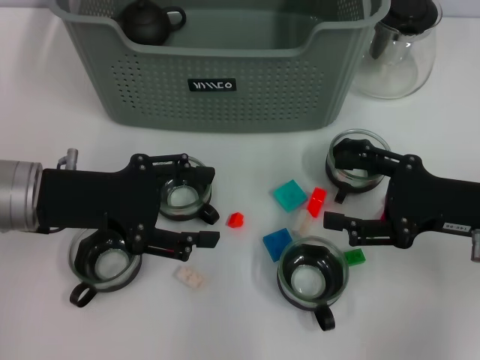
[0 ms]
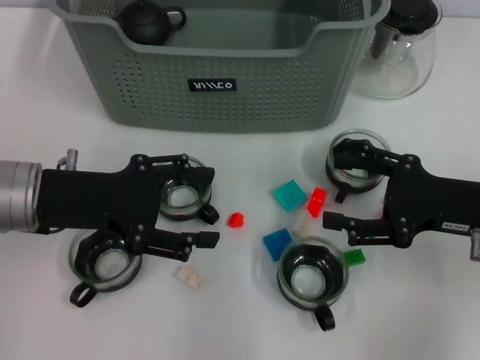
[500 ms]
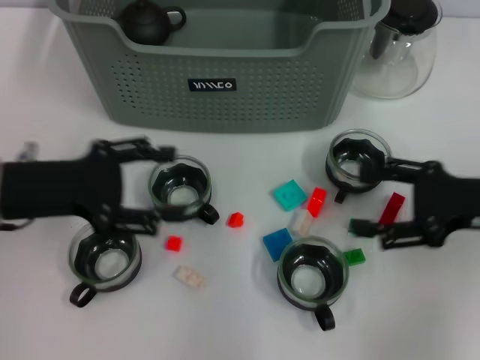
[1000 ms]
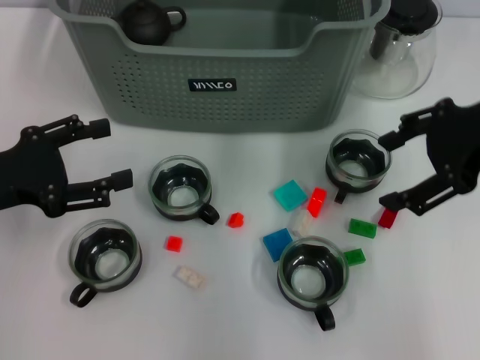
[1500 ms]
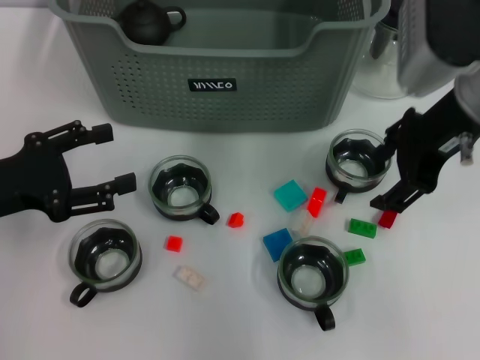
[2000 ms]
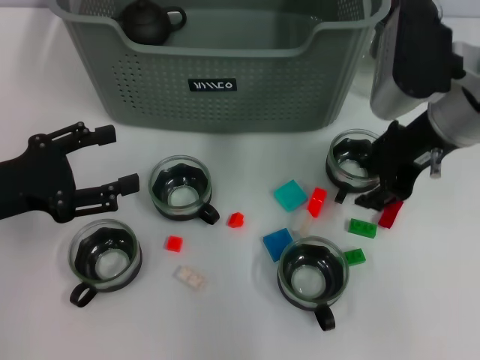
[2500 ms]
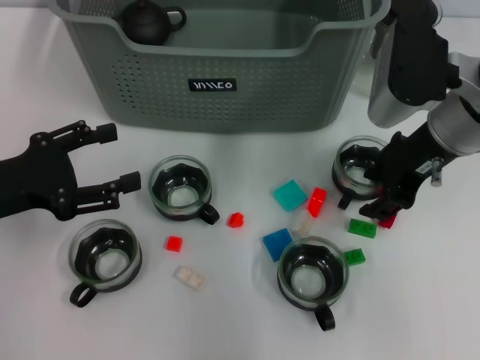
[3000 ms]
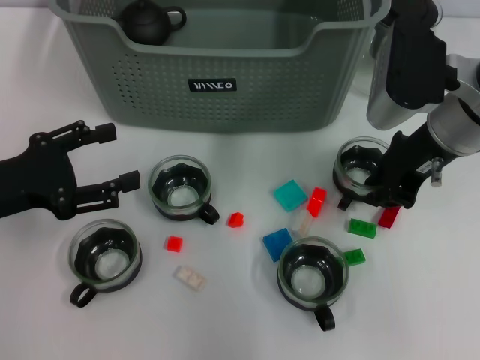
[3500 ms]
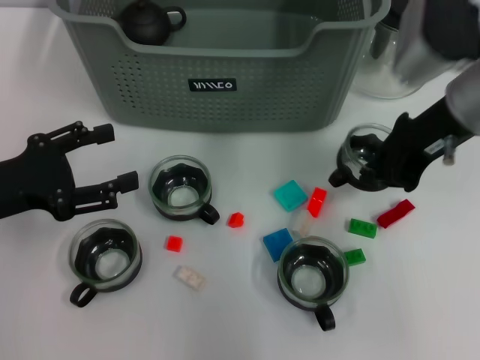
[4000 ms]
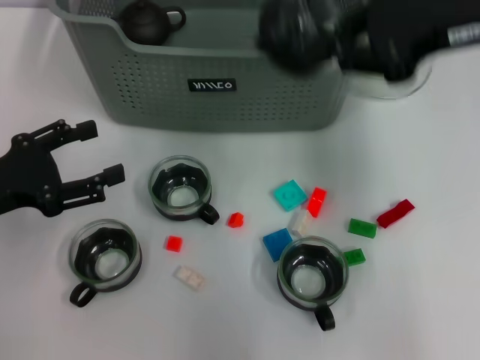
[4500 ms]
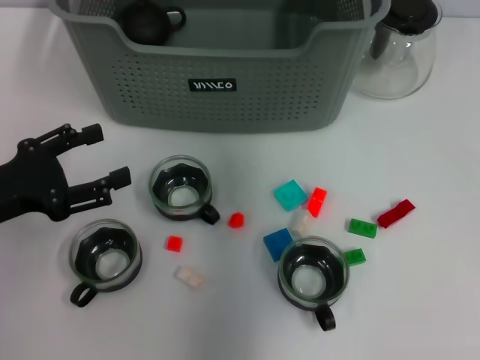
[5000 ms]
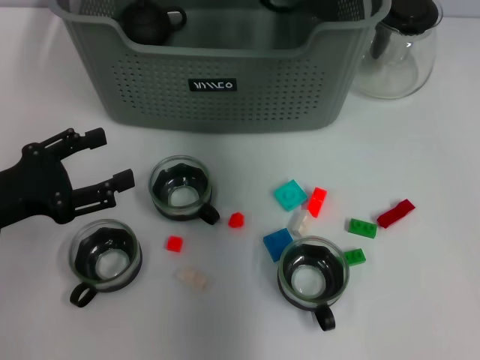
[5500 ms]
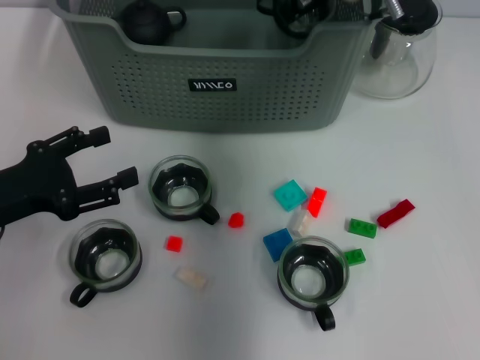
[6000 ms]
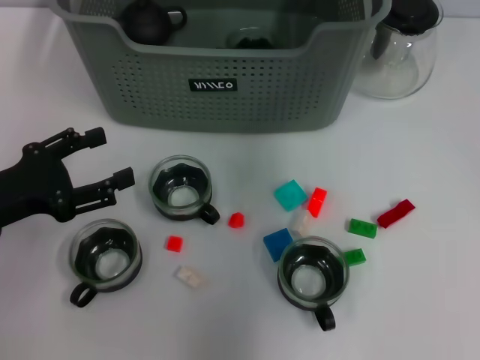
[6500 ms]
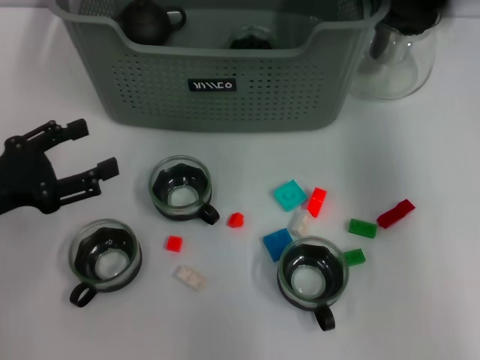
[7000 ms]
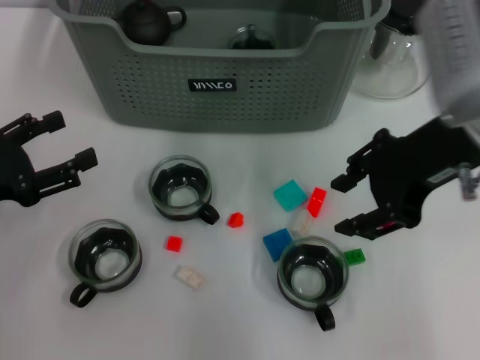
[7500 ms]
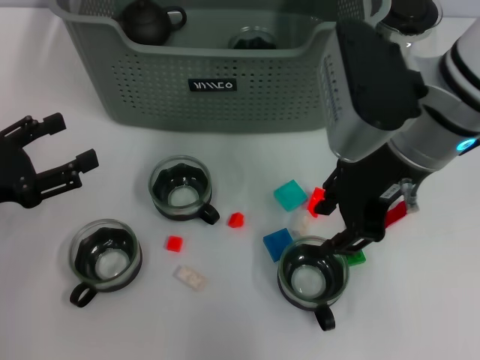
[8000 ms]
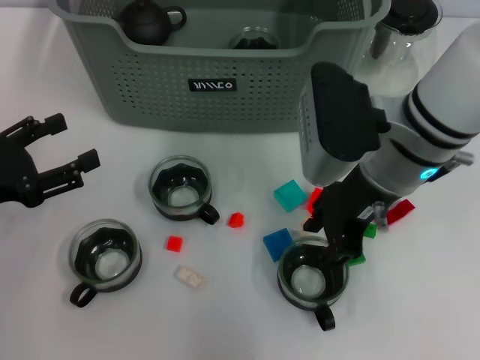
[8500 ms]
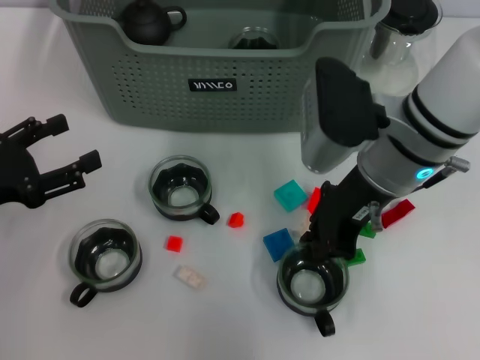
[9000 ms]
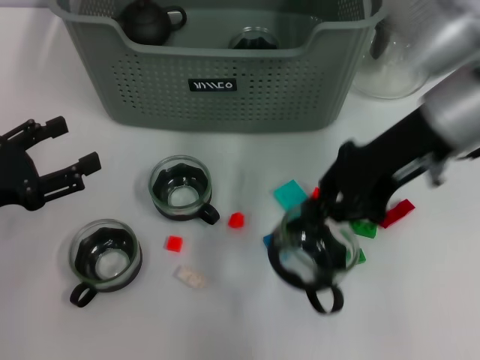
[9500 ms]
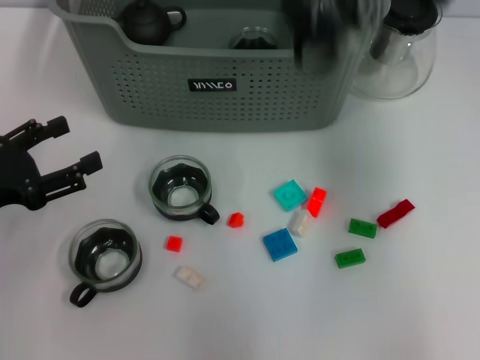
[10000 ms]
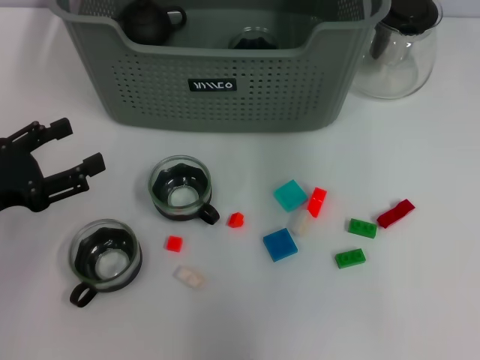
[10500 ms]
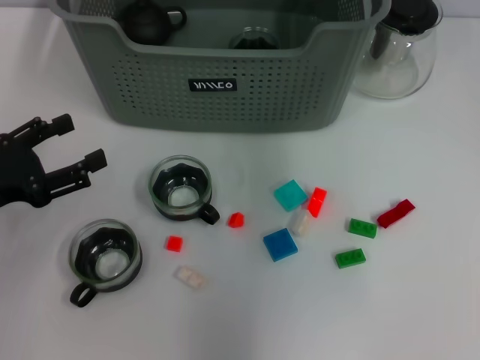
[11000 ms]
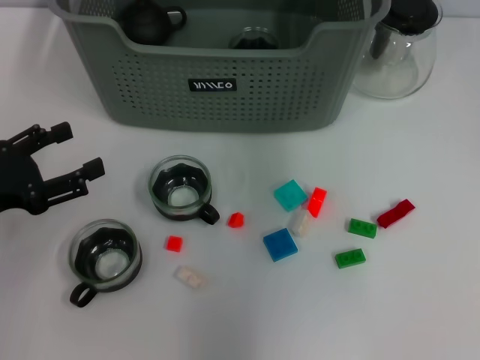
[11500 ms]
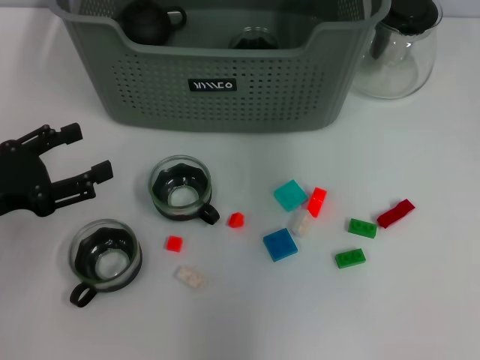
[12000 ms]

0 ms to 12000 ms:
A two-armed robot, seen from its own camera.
Task of the whole recording: pick up the teacup on the table and place it into the storage bin, pick up the block on the table and place it into the storage bin.
Step, 0 ms to 3500 ms: Grasp the cup with right gripper.
Step, 4000 ms to 7500 ms: Place the cup in the storage box with right gripper.
Step, 8000 ms to 8500 ms: Grasp the cup with right gripper.
0 ms to 2000 ms: The left gripper shifts about 5 cm to the left; the right gripper travels upward, forward and to the left by approximately 15 cm.
2000 ms to 4000 ms: The right gripper closes.
4000 ms to 6000 ms: The right gripper travels forward and to the left by about 15 cm.
6000 ms to 8000 ms: The right gripper is displaced backward by approximately 15 cm, and opens its fingers.
8000 ms to 10000 ms: The right gripper is displaced to the right and upward by approximately 15 cm, and closes up.
10000 ms to 12000 ms: The right gripper travels forward and to the left by about 15 cm.

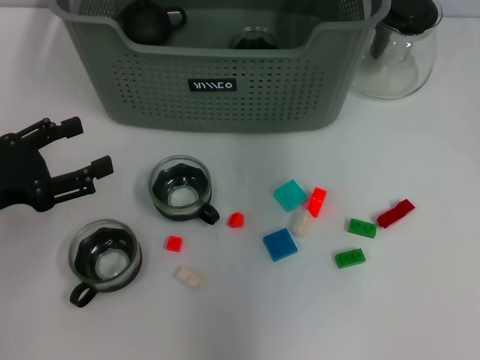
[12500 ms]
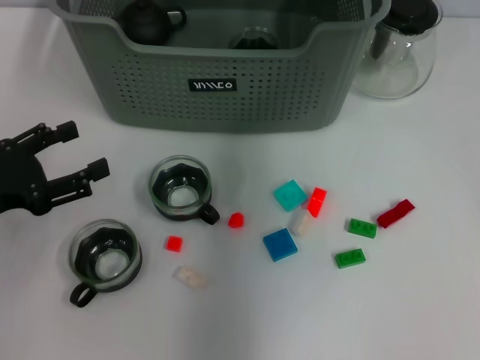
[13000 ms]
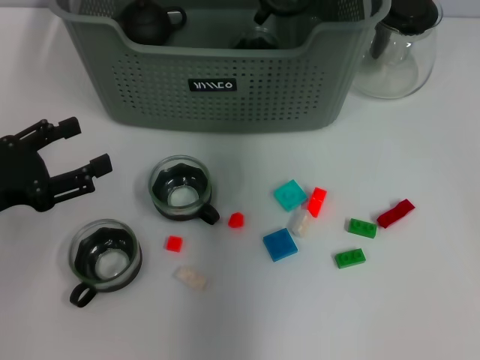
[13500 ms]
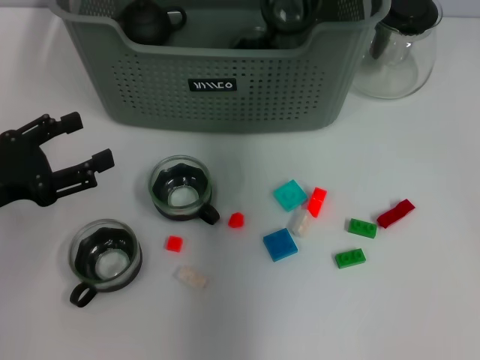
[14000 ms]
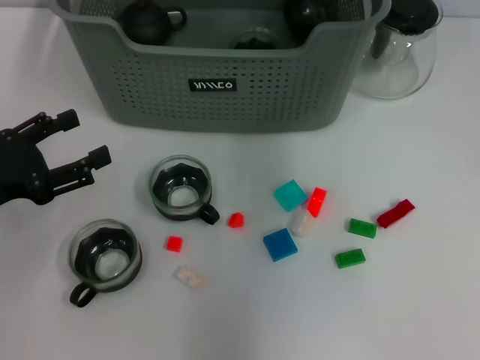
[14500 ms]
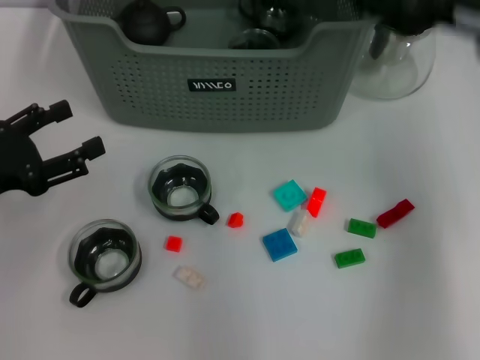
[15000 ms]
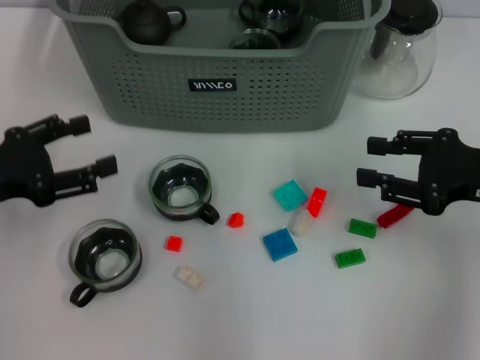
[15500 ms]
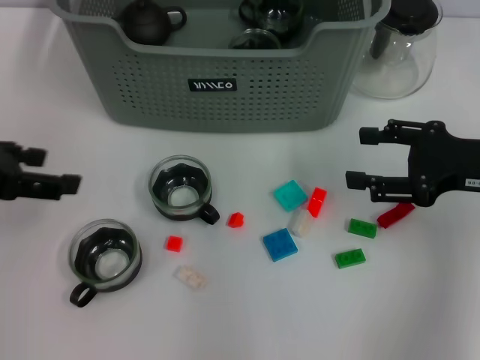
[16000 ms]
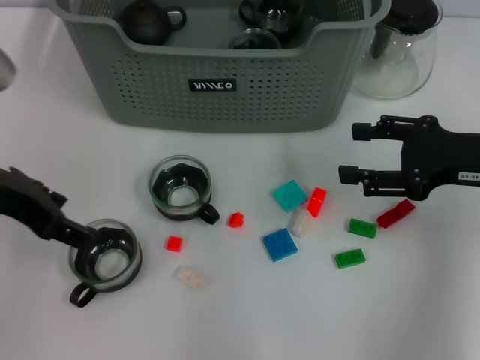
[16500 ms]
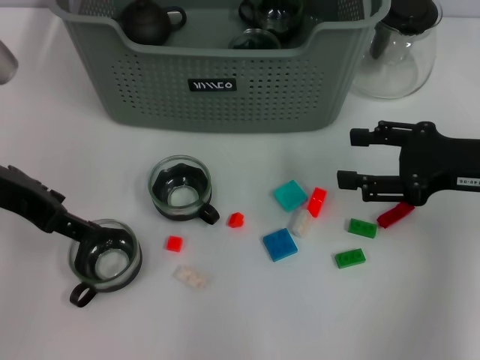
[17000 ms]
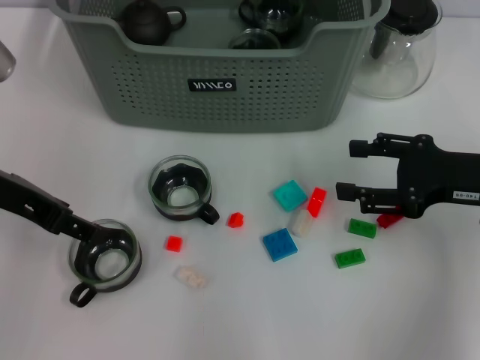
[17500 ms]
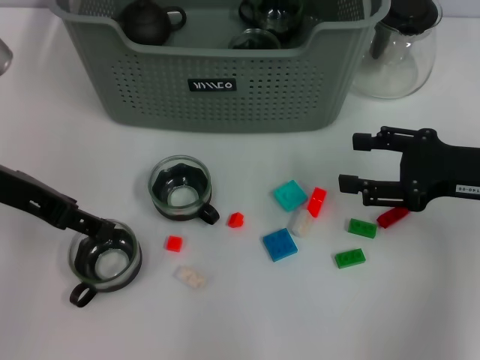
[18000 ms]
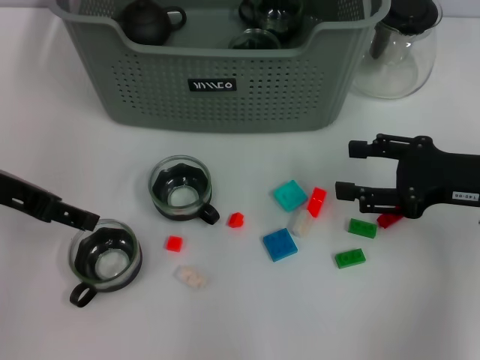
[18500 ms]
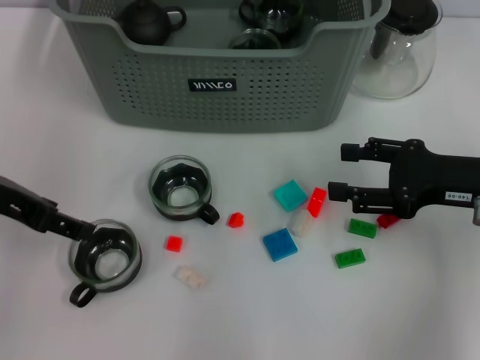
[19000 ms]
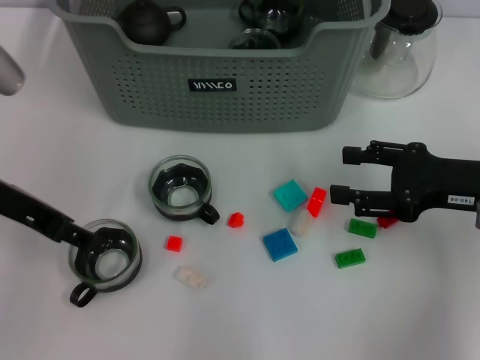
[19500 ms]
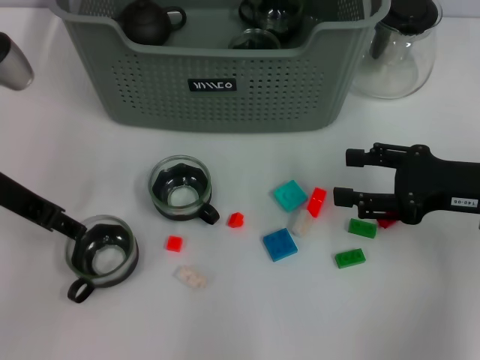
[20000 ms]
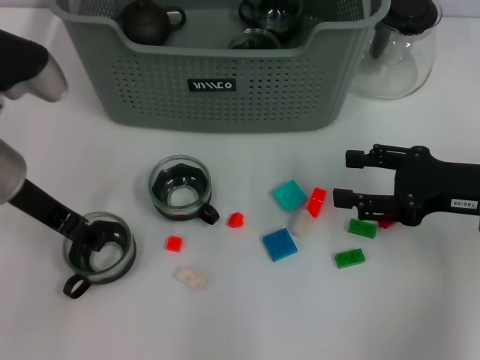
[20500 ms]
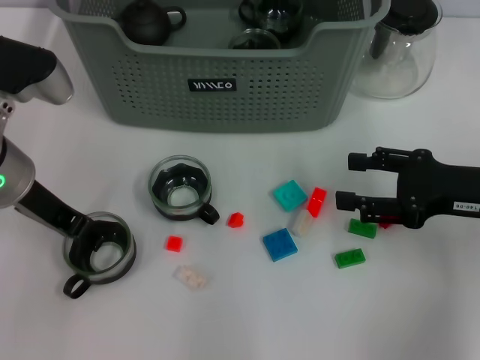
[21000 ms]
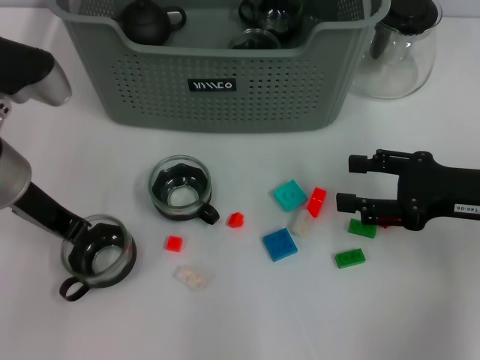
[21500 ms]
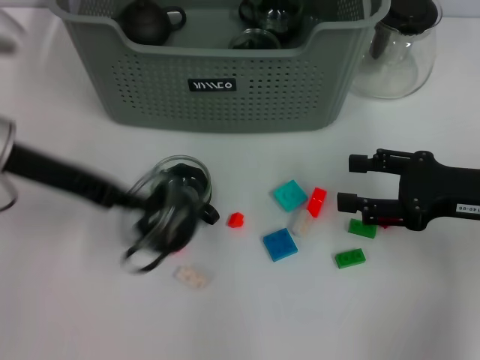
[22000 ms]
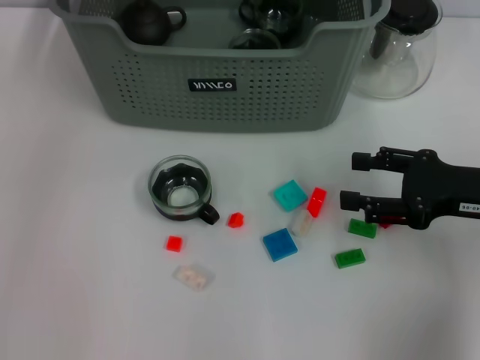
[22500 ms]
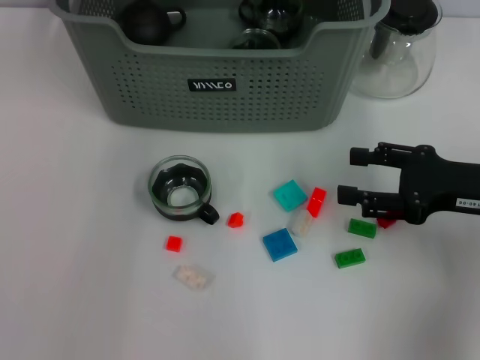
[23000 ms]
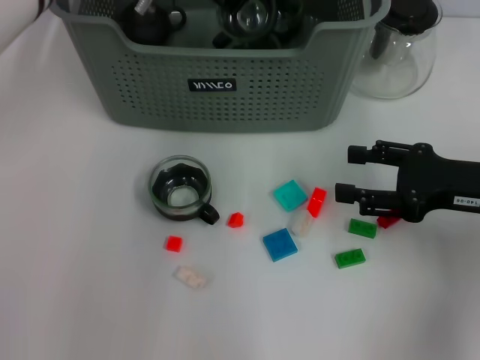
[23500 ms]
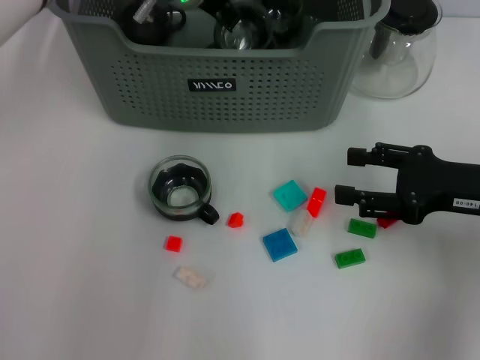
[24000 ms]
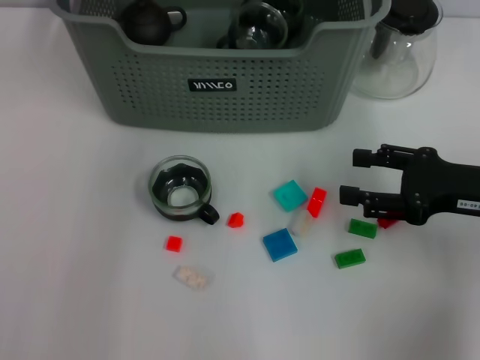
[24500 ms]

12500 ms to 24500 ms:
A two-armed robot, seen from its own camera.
Task of the whole recording: pick up the teacup on the table and place it into the storage bin, pick up the block on the table and place it into the storage bin.
Step, 12500 ms to 15000 ms: Place the cup in the storage box with right gripper.
Step, 15500 ms to 21500 ms: Grasp the cup with left gripper.
14500 ms to 16500 ms: The left gripper travels upward and to the right by some 10 cm. The right gripper is displaced backward, downward and to the right by about 25 cm, and opens its fingers.
16500 ms to 18500 ms: There are only small adjustments of the grippers.
18500 ms to 20500 ms: The left gripper ends up about 5 cm from where it was.
20500 ms to 22500 ms: The left gripper shifts about 15 cm upward and forward, and closes its fingers.
22500 ms to 24500 ms: The left gripper is displaced to the right by roughly 5 cm, and opens up.

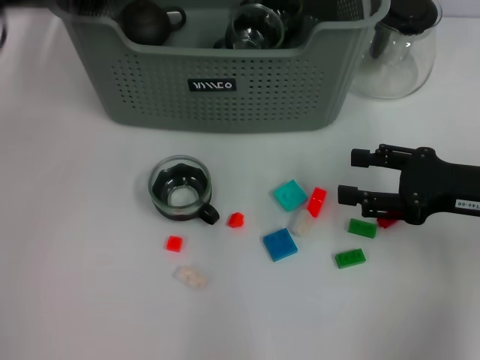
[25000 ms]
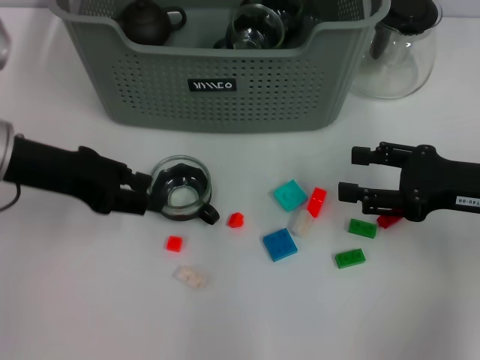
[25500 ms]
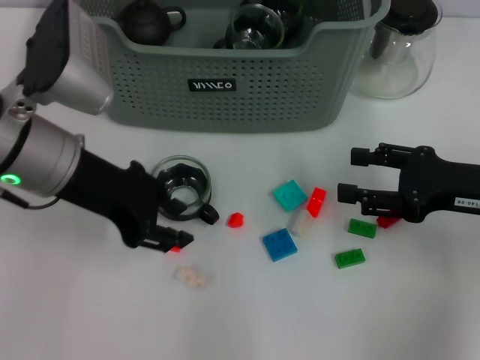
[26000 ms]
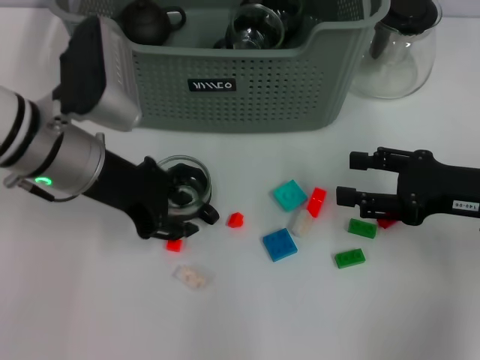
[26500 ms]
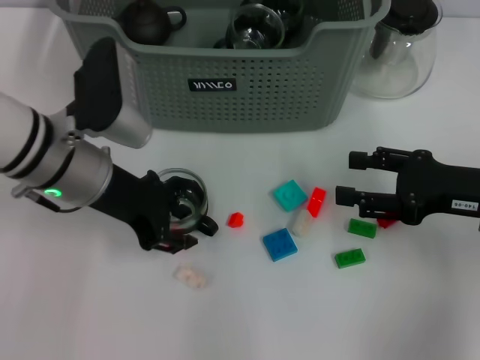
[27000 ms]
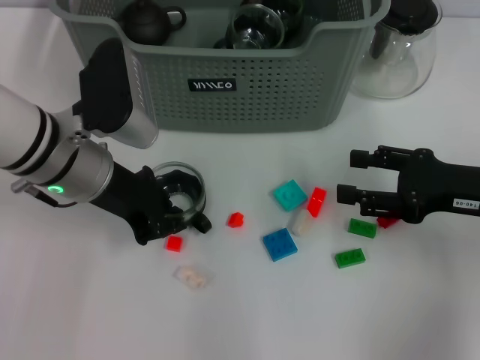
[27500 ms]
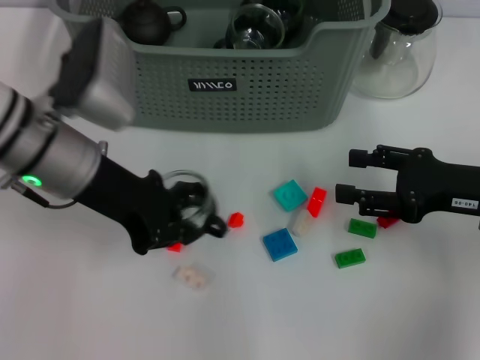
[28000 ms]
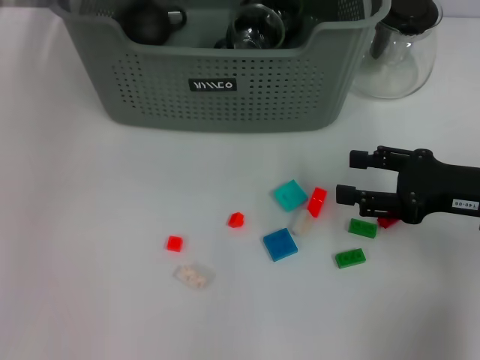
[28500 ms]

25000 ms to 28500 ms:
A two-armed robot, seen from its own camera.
Task of the whole recording: pick up the teacup on the table and place it into the storage bin, pick up the block on the table and place it into the storage bin.
Step, 25500 ms to 27500 ms: Grasp the cup with left gripper.
25000 ms to 27000 ms: The left gripper travels downward and to the right by approximately 15 cm.
27000 ms to 28500 ms: The left gripper heads upward, covering roughly 15 cm, and closes up.
